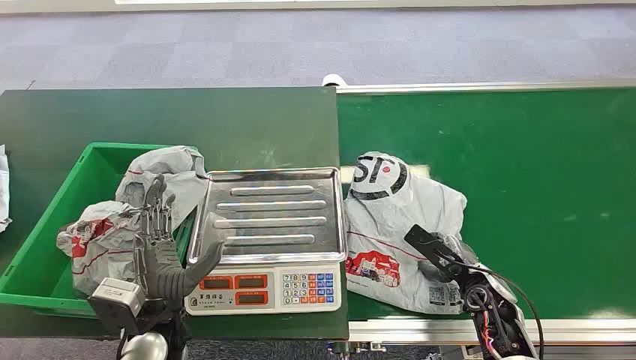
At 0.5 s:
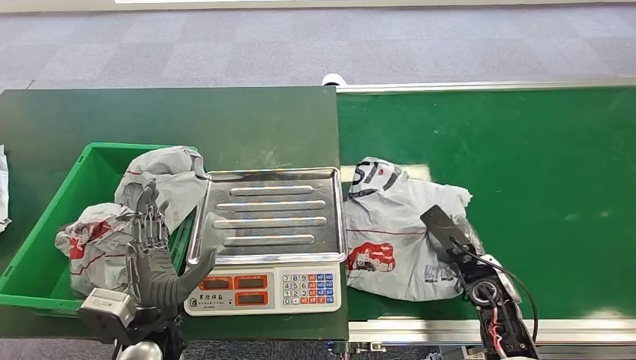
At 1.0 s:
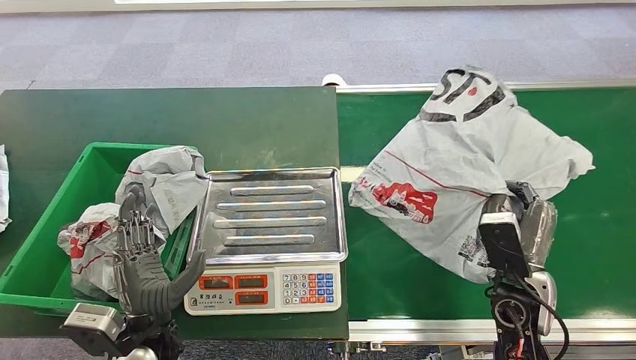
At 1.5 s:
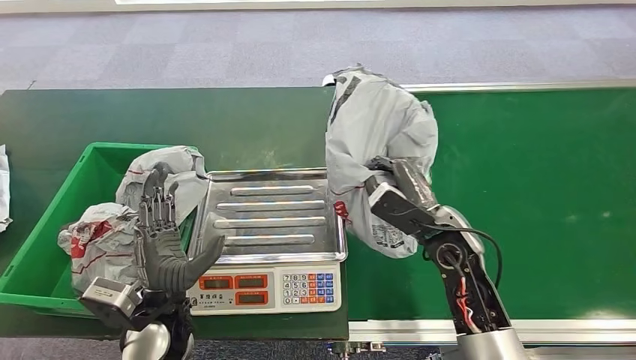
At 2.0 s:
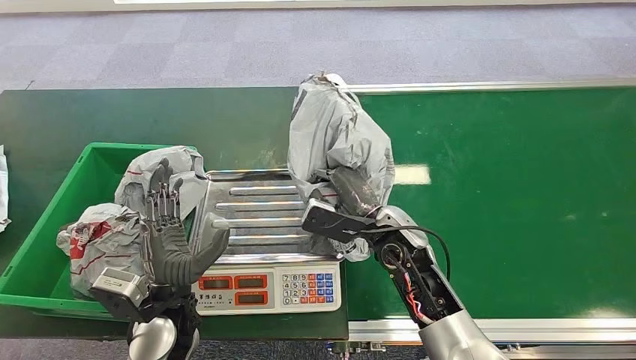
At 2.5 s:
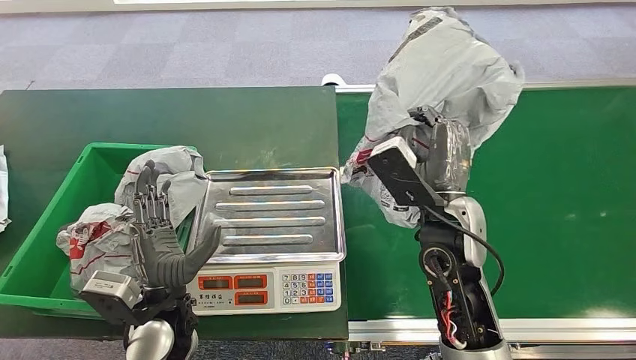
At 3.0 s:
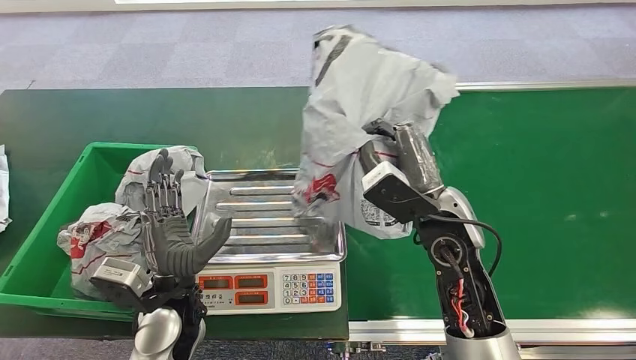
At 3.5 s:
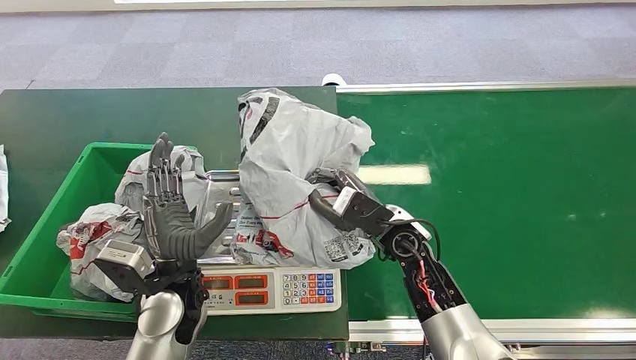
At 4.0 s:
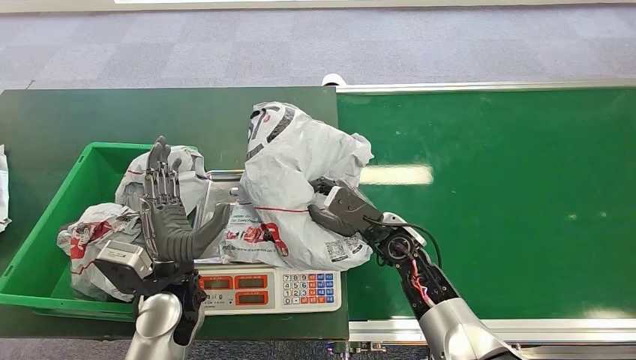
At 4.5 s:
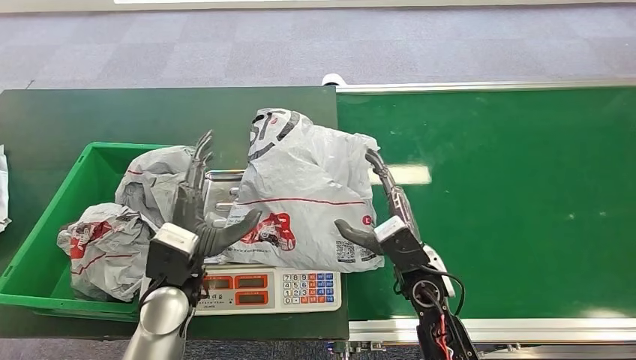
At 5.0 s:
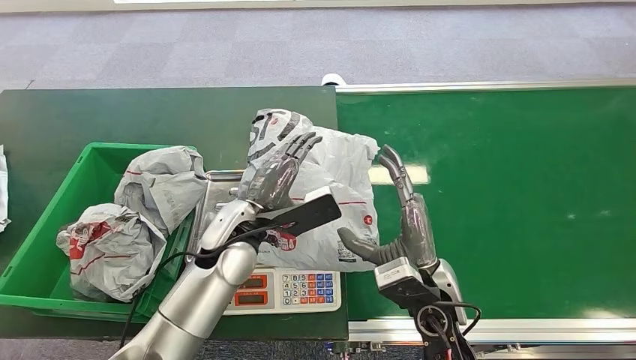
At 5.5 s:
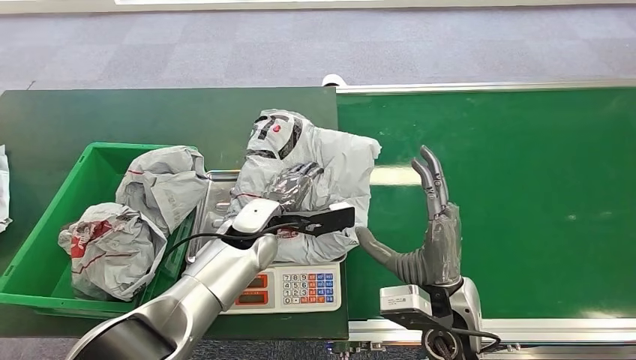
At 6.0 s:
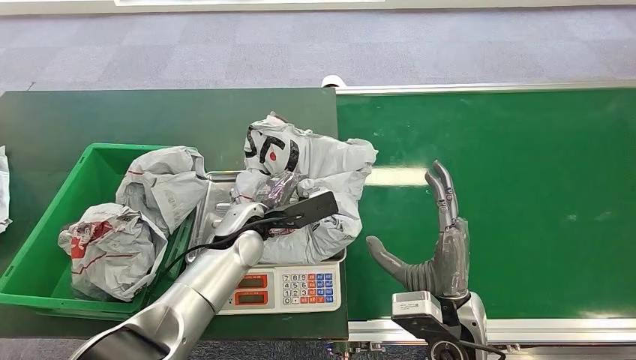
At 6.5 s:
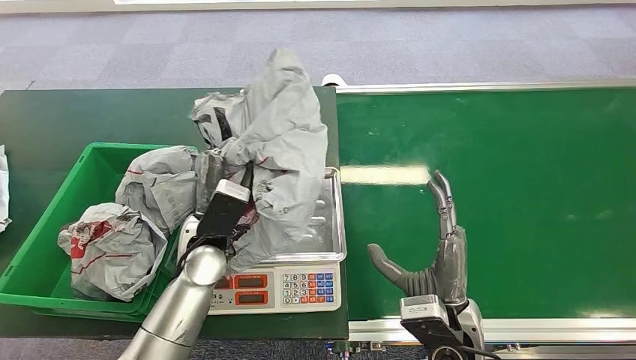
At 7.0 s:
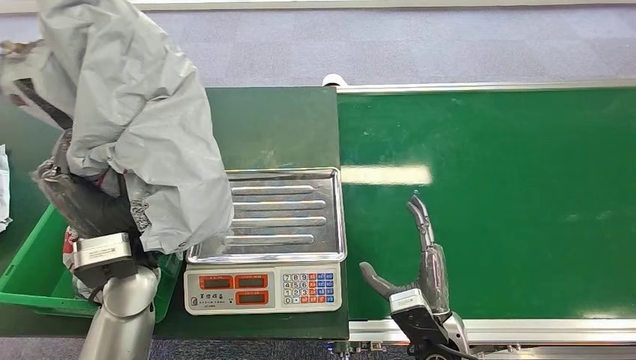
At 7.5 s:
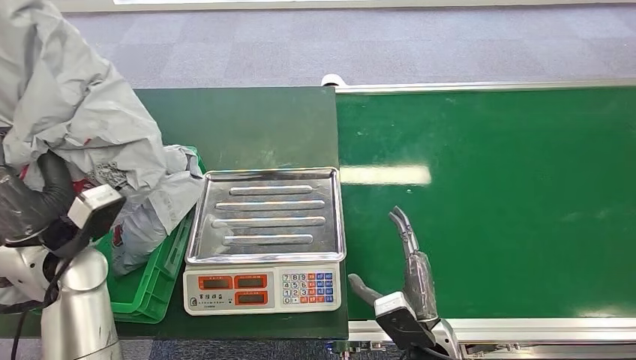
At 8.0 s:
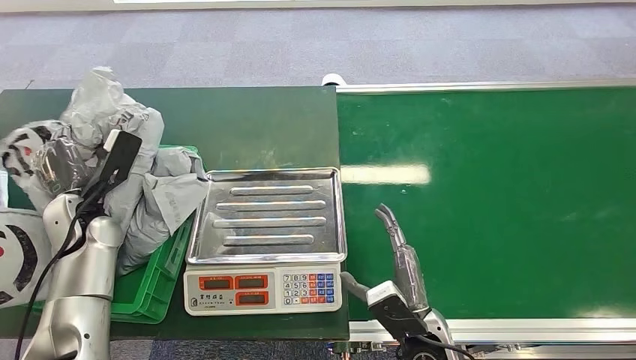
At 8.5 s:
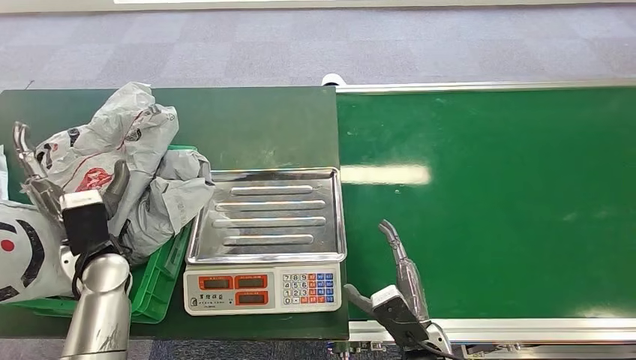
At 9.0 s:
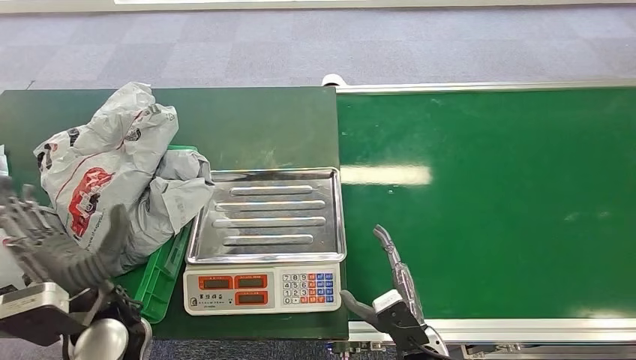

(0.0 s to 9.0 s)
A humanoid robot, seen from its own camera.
Step, 0.0 s - 1.5 s: Pick up the package from the conveyor belt.
Step, 2.0 s - 4.5 s: Place the package onto the inbound machine.
Step, 5.5 s - 7.0 s: Pick up the package from the inbound machine.
Step, 7.5 s - 9.0 s: Place the package into the parcel locker.
2.0 s - 4.5 s: The left hand ends up some 5 cm from where it was. The right hand shifts some 5 cm backward, and travels upward and back again, some 10 cm each way.
